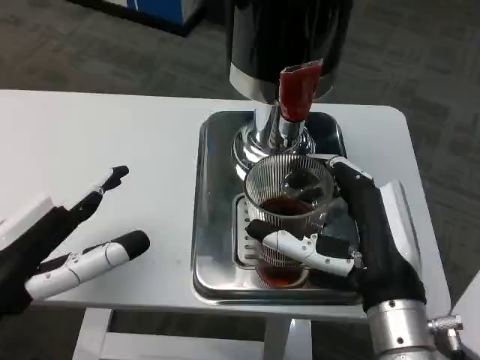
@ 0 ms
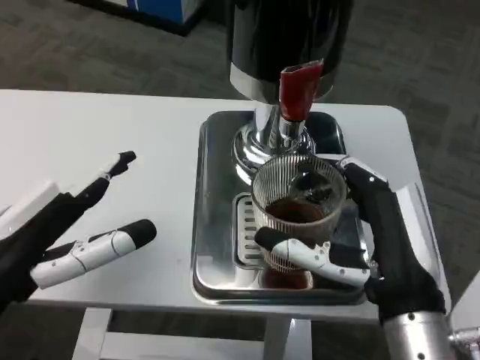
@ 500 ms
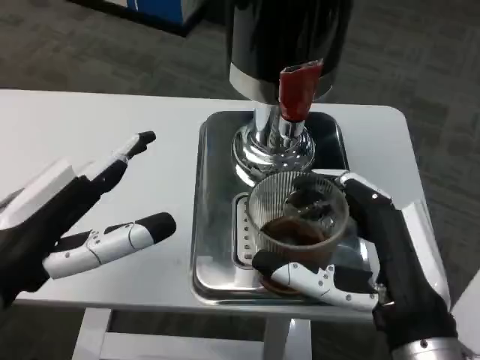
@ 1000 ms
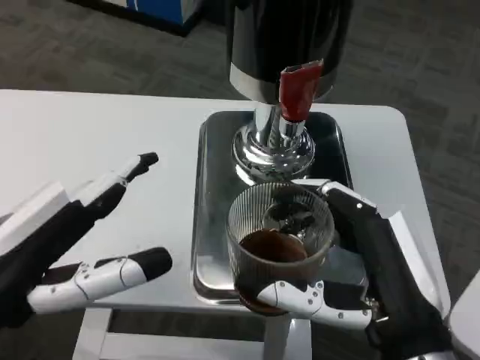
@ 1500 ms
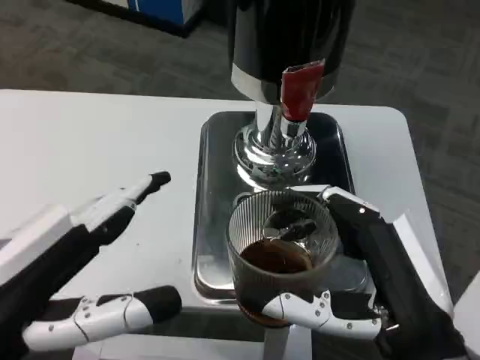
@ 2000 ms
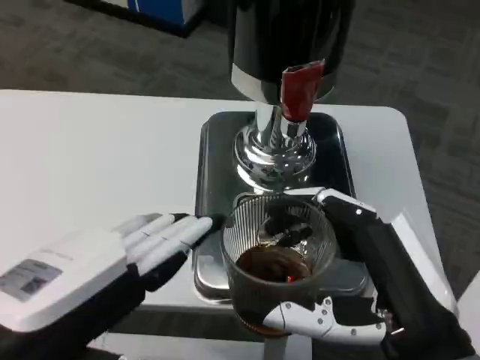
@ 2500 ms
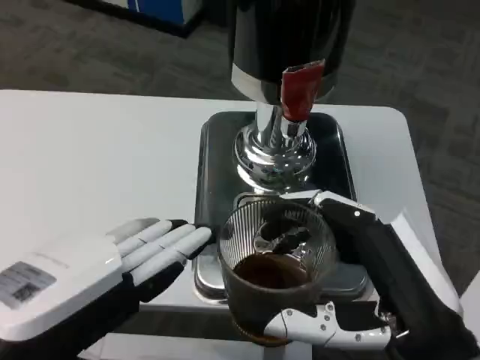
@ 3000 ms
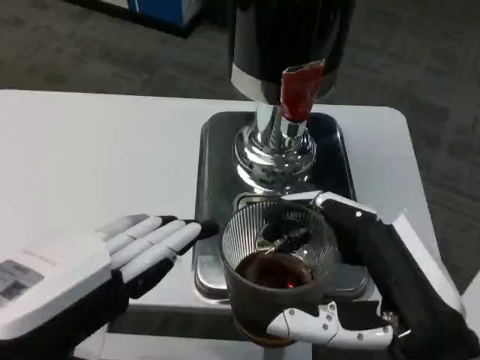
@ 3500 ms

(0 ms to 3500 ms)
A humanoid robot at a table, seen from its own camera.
Task of the whole recording: Grasp the cup under the faucet to collect the drink, then remove the cup.
0 ms - 2000 ms: The hands both shift backward by approximately 5 cm.
